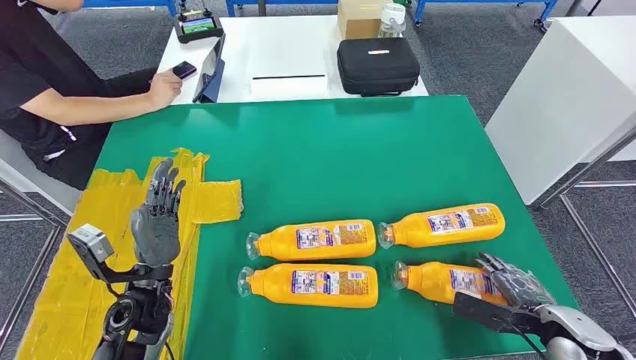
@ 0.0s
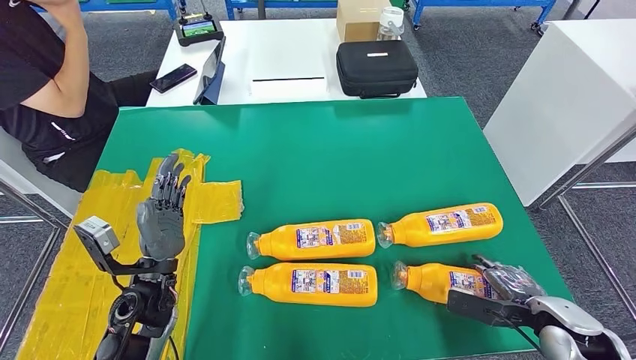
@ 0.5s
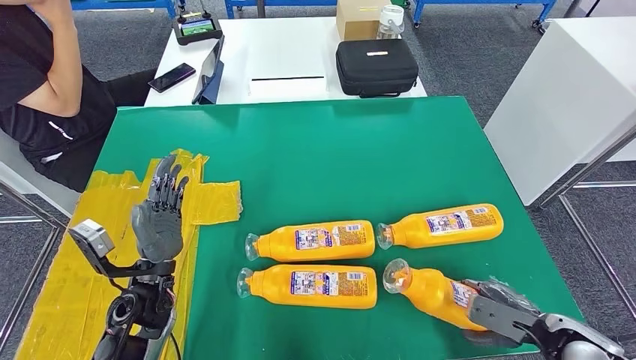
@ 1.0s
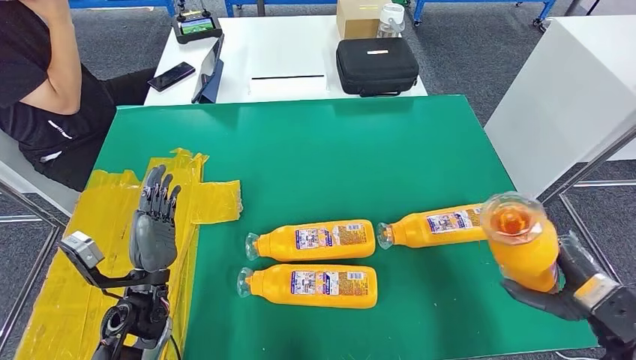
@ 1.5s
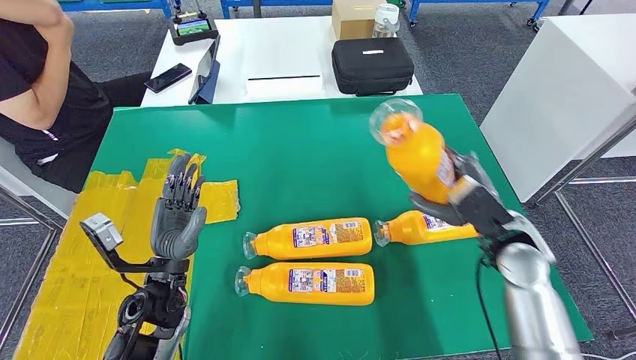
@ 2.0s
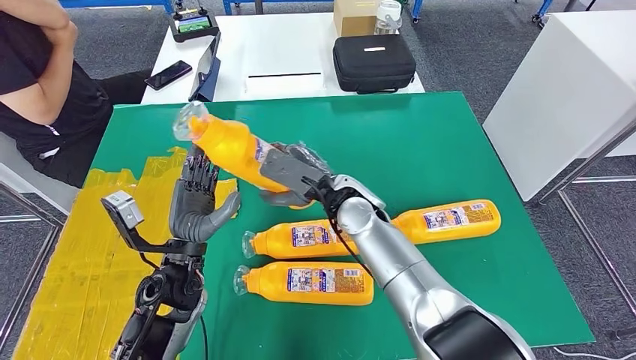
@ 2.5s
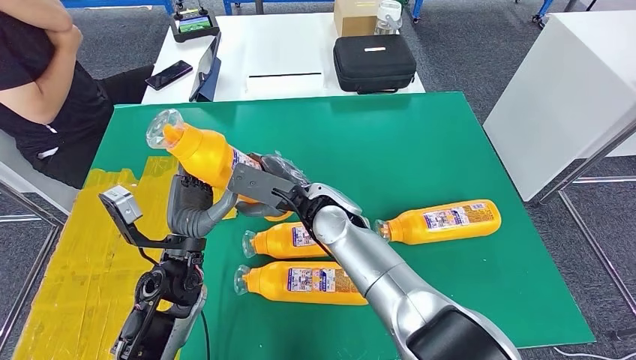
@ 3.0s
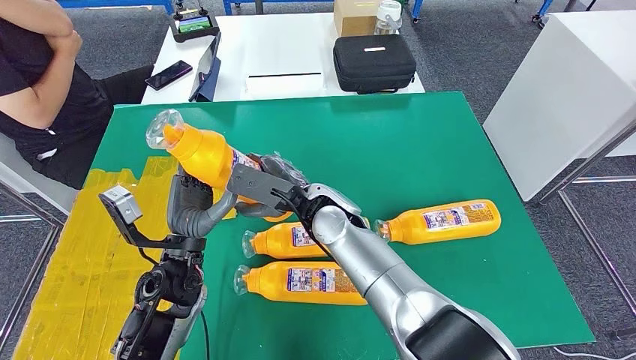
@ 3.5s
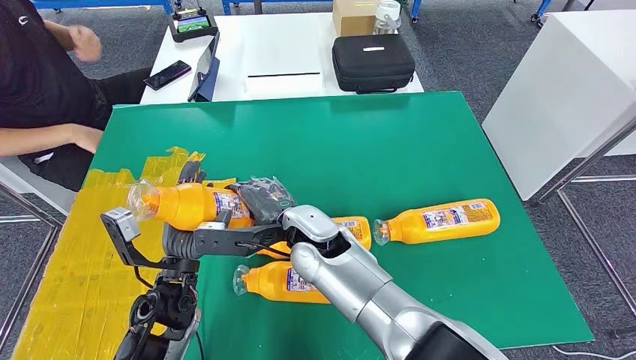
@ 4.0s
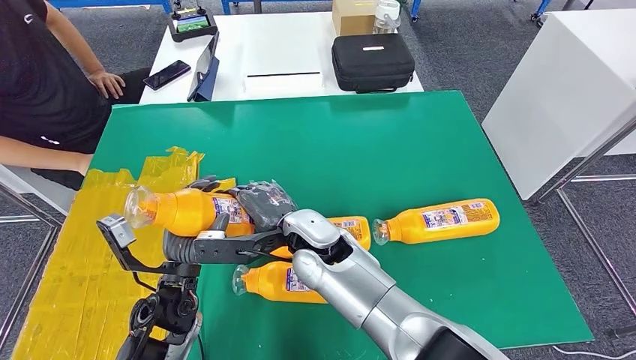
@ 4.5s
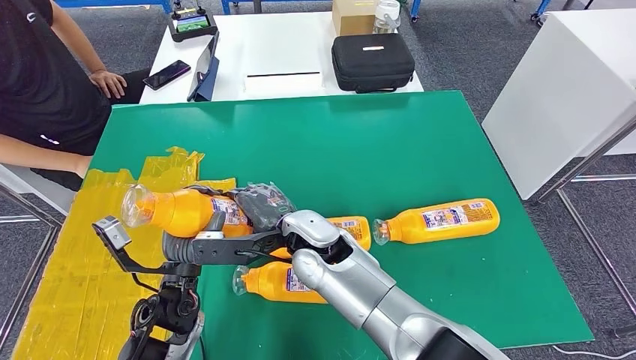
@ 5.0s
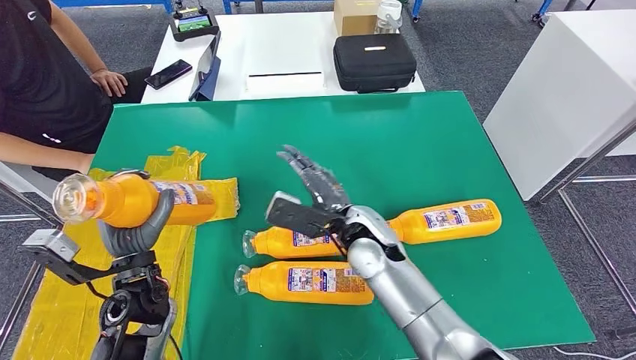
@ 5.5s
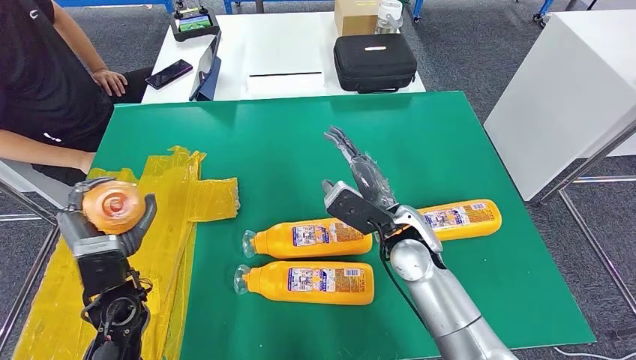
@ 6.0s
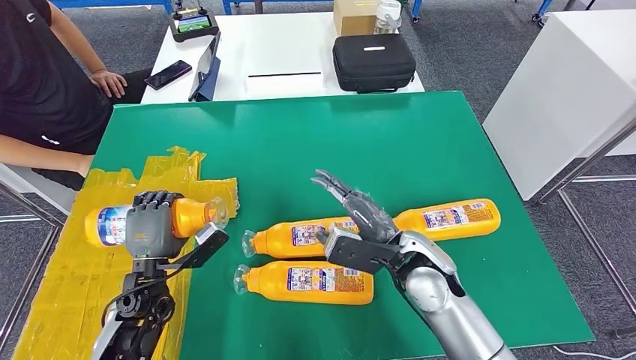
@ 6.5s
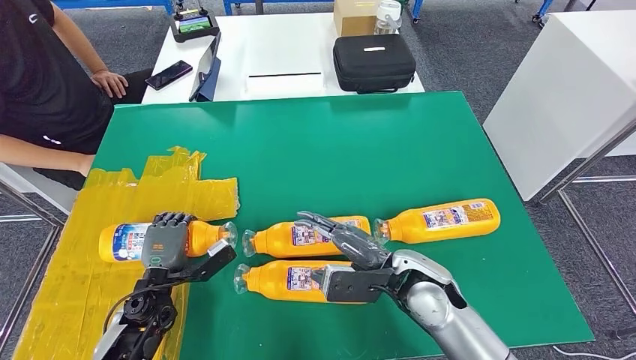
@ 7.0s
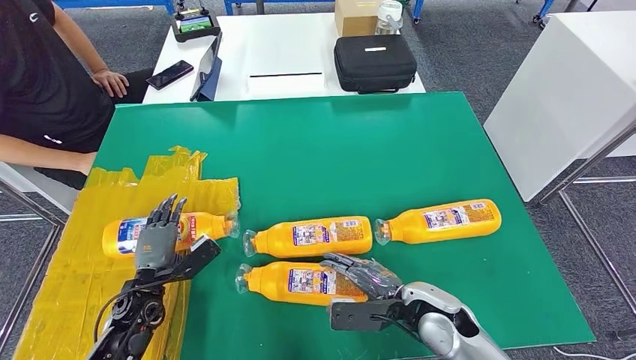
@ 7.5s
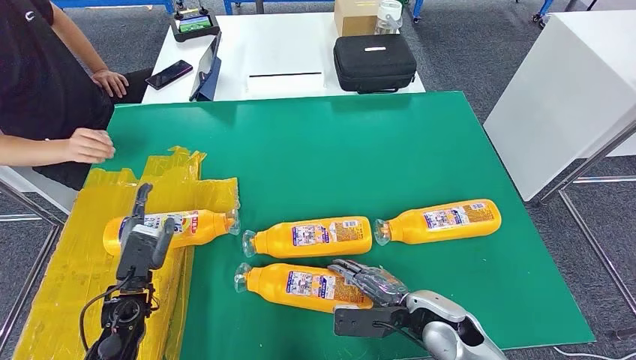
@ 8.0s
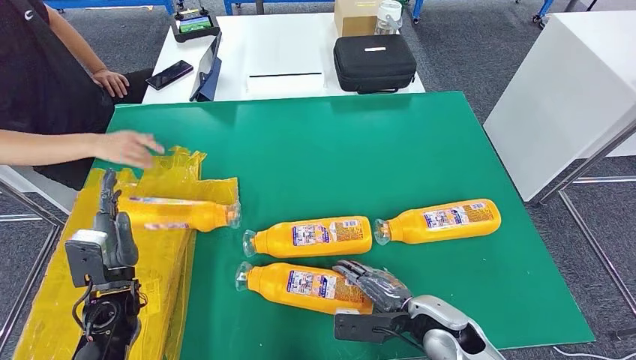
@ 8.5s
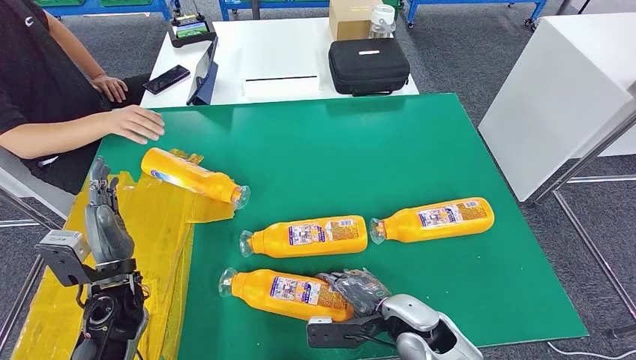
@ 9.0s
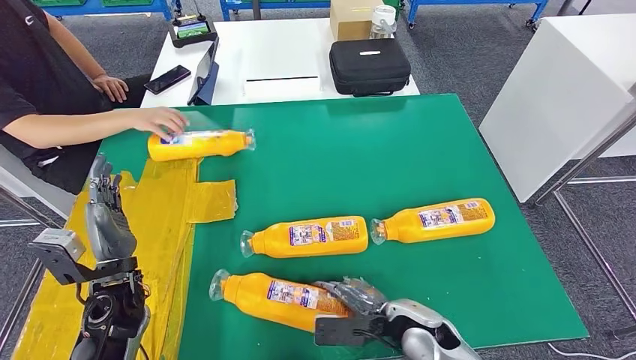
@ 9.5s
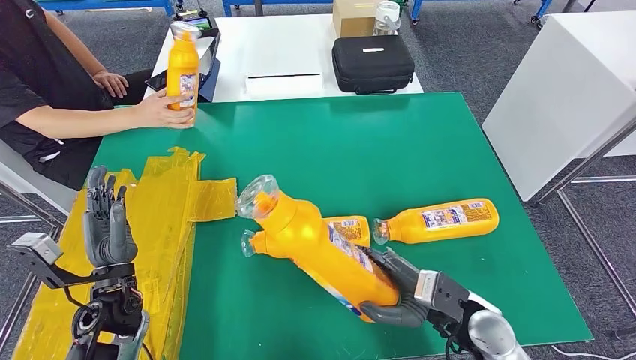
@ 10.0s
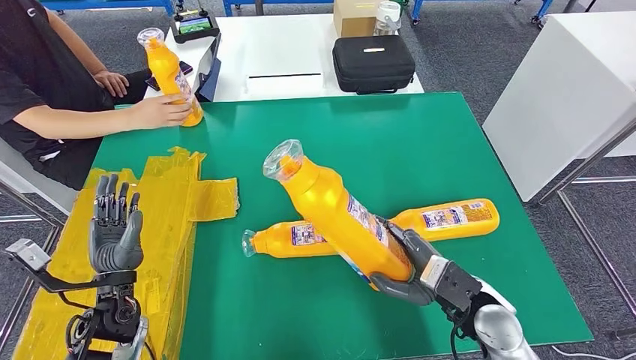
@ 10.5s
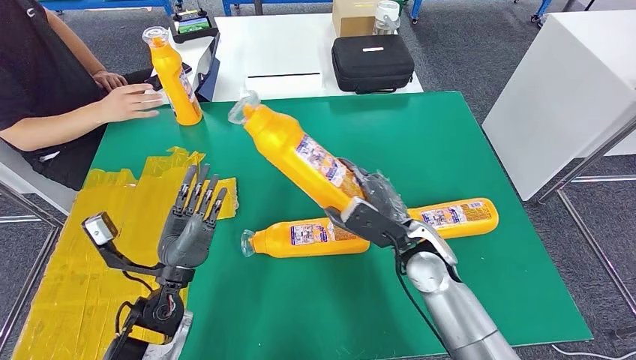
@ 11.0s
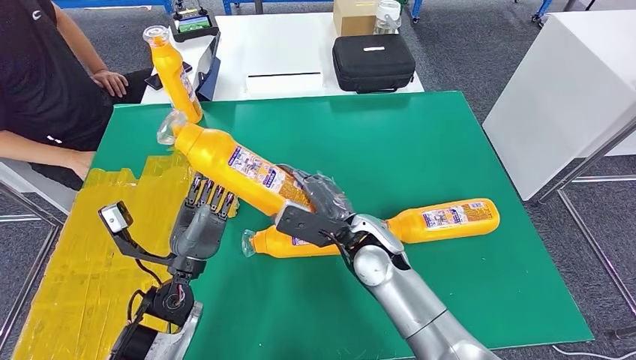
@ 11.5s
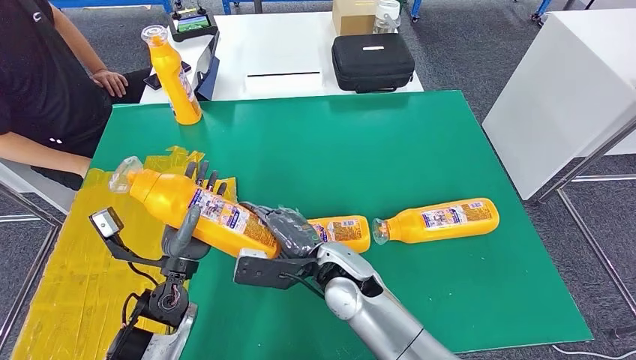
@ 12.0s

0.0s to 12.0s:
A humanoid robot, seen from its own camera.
Step, 0.0s to 2.0s: Take the fast-moving consumer goods bottle from the table.
Step, 4.5s to 7.5s: Flip the fast-moving consumer goods bottle to the front side.
6.0s to 8.0s: The left hand goes roughly 10 cm downward, while the right hand is displaced backward, downward and to the right by about 15 cm.

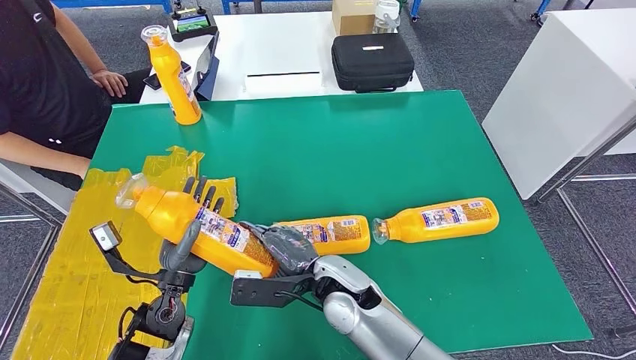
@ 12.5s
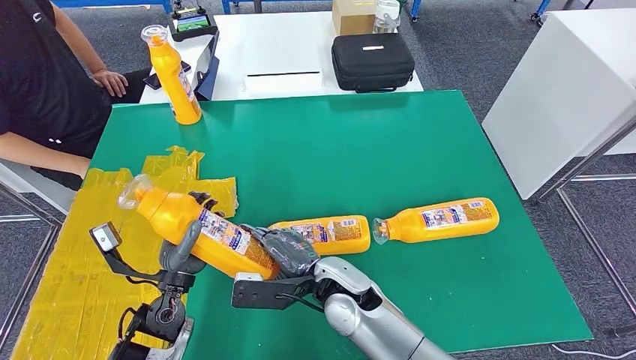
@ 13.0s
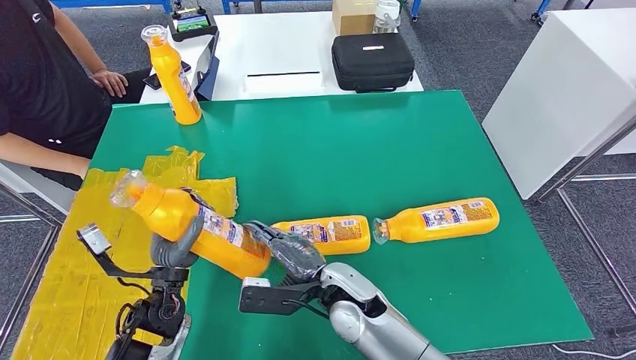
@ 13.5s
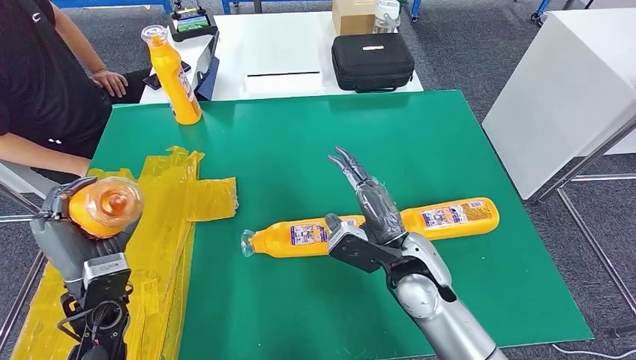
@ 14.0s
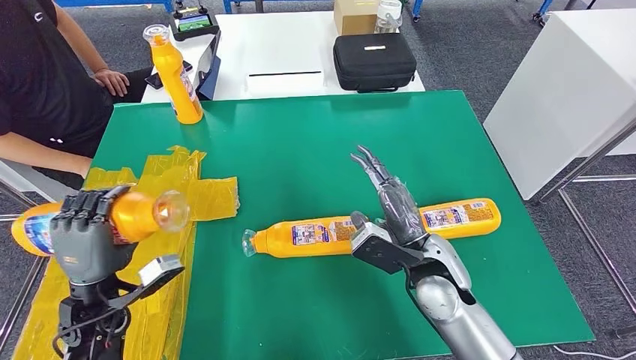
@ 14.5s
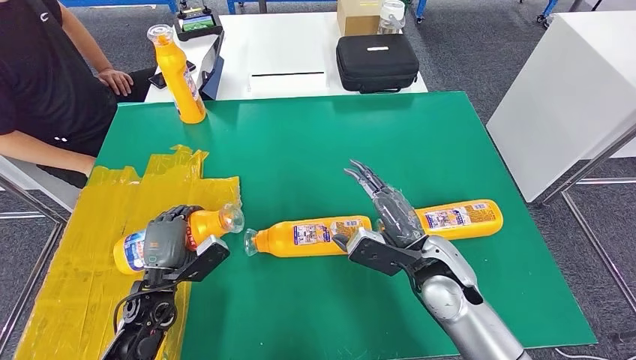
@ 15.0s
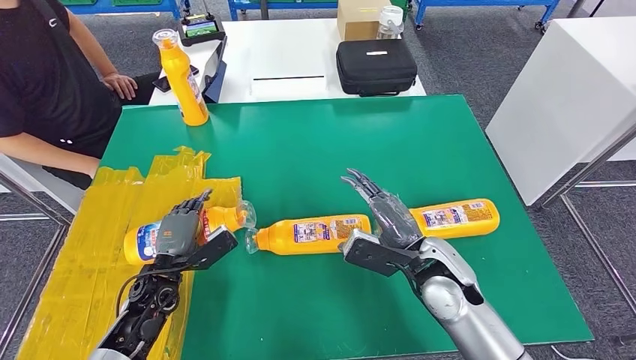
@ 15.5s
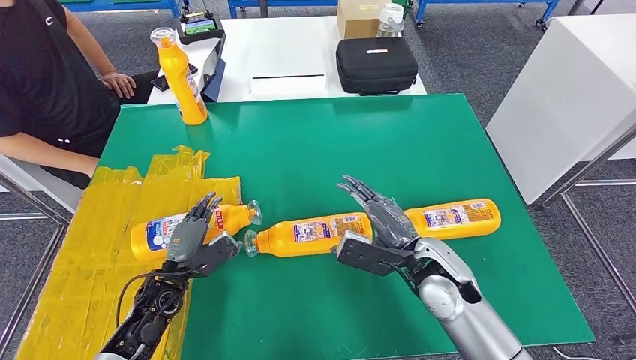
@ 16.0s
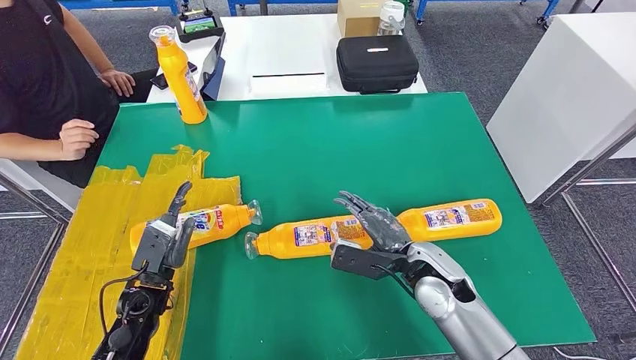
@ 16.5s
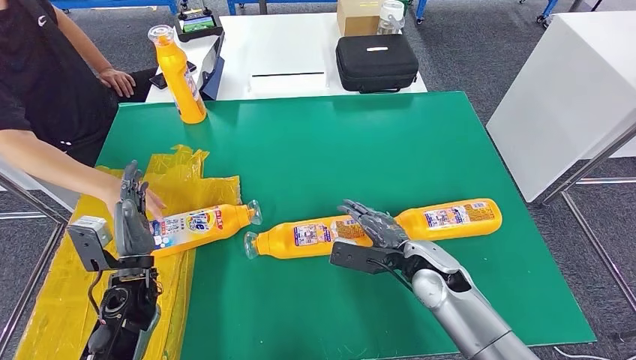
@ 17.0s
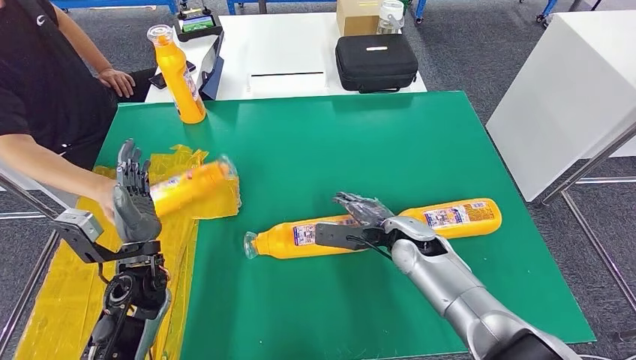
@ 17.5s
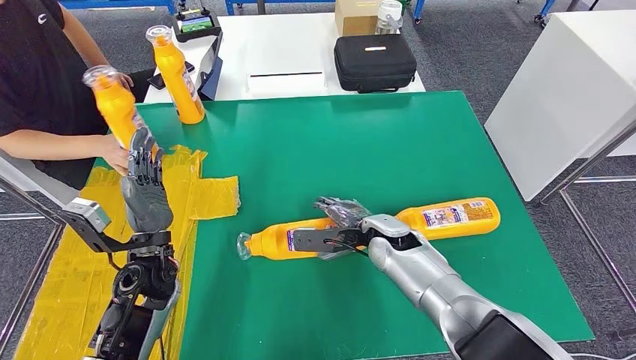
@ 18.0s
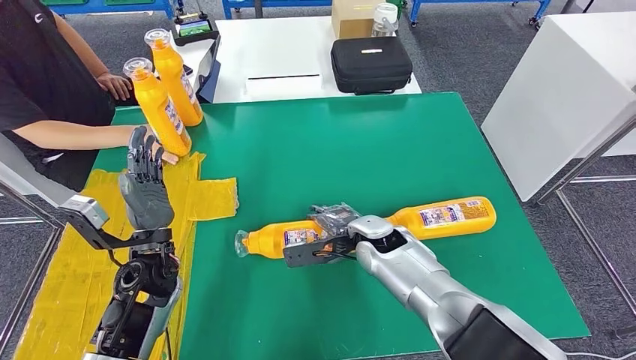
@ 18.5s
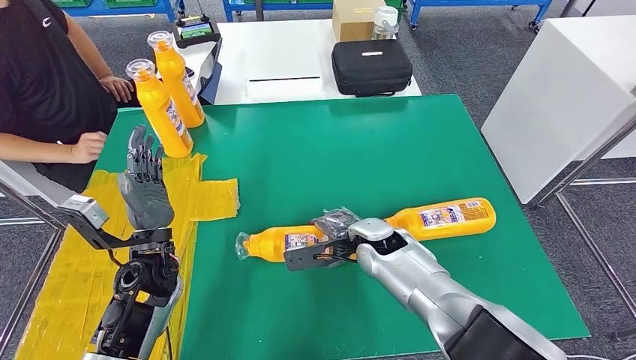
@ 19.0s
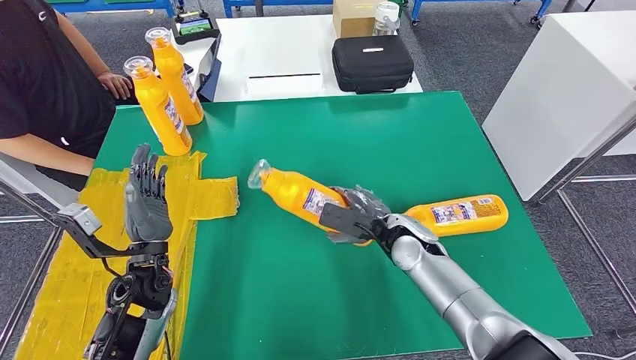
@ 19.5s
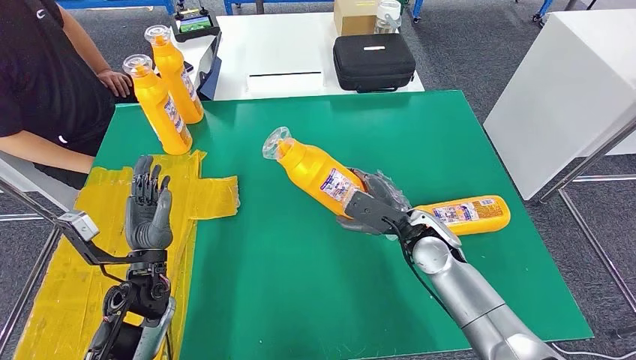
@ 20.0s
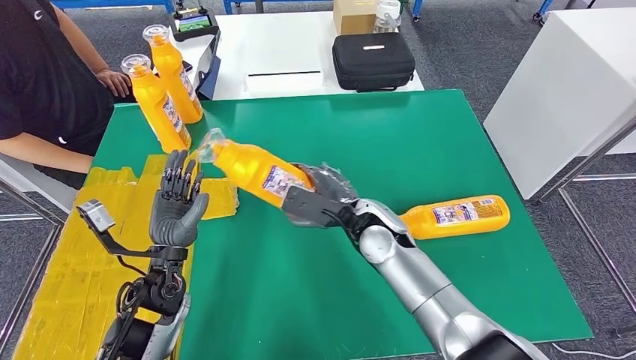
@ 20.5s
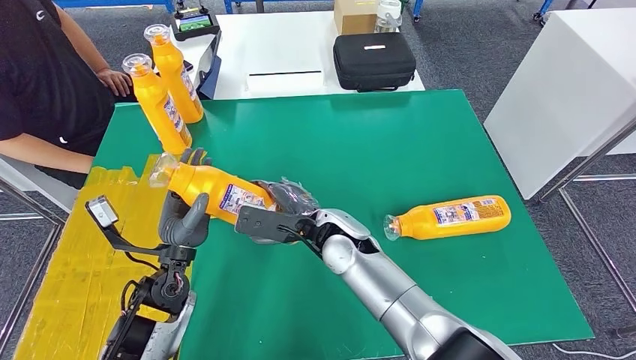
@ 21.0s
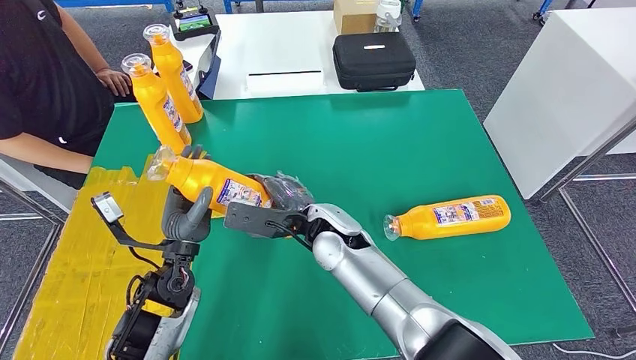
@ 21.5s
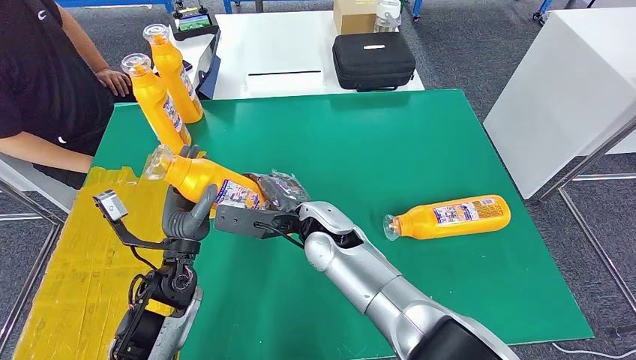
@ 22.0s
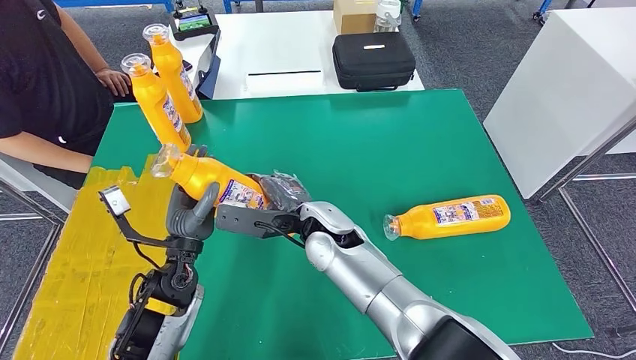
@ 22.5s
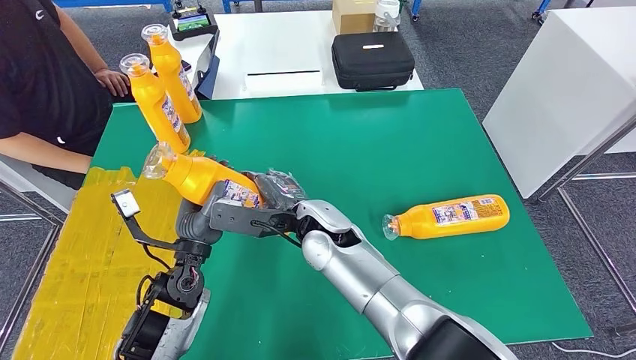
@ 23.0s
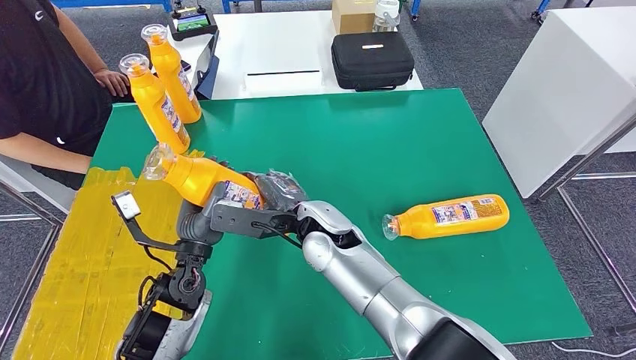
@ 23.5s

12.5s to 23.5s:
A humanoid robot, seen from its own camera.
Step, 13.0s to 15.5s: Flip the fast-moving consumer goods bottle to the front side.
Step, 18.5s to 20.5s: Pick up the fast-moving consumer goods bottle from the table.
21.5s to 23.5s: The hands move only a little.
